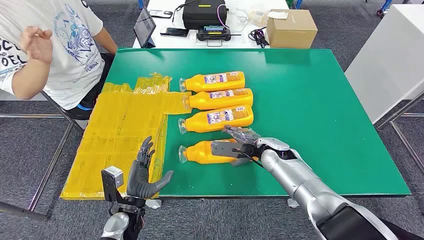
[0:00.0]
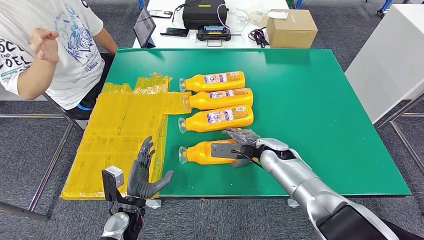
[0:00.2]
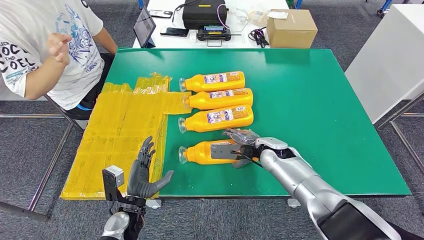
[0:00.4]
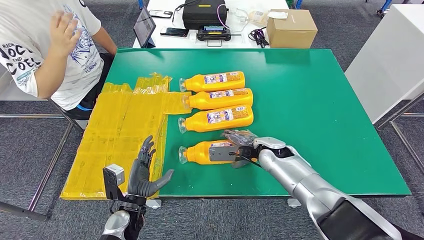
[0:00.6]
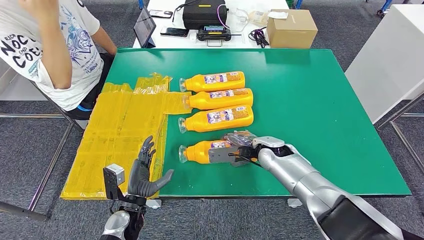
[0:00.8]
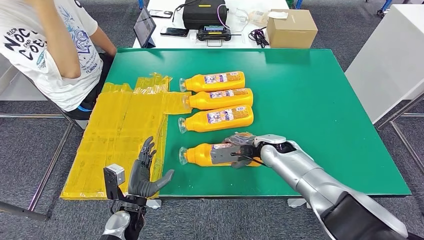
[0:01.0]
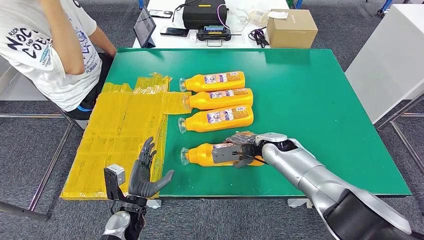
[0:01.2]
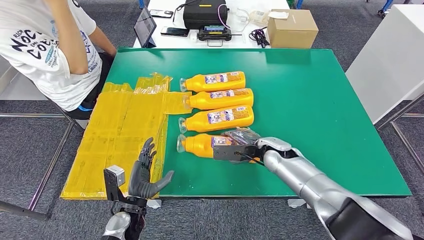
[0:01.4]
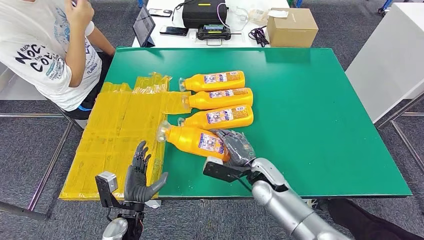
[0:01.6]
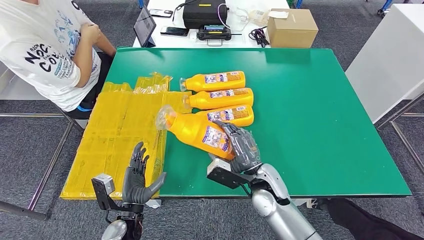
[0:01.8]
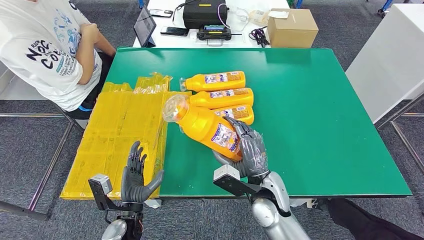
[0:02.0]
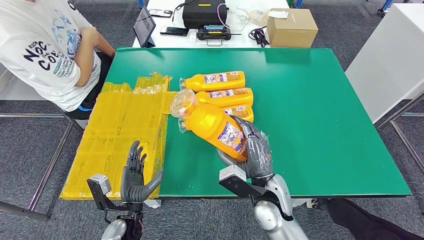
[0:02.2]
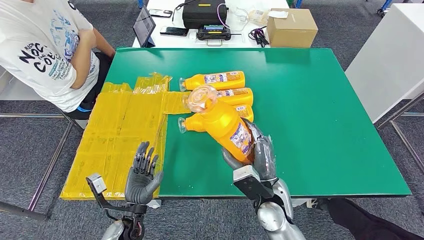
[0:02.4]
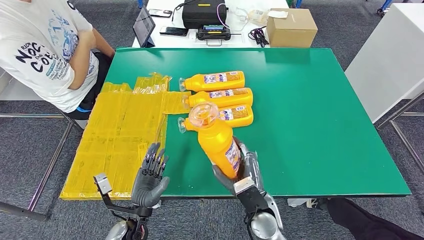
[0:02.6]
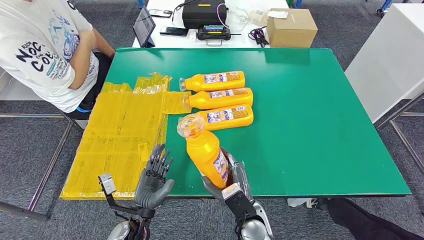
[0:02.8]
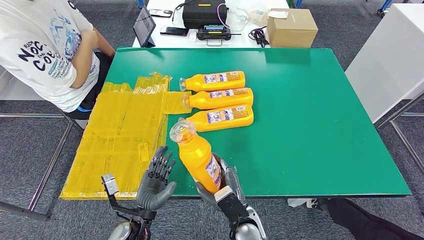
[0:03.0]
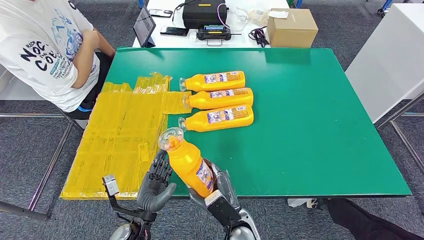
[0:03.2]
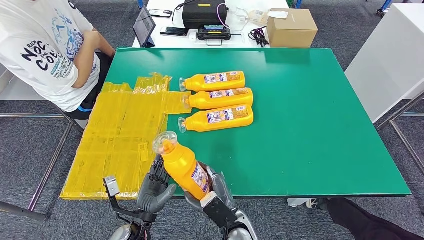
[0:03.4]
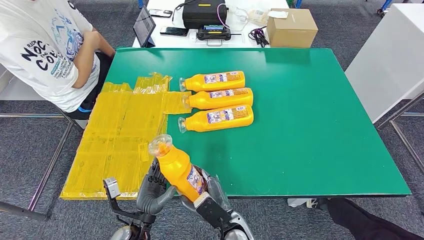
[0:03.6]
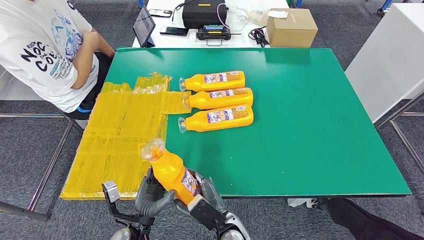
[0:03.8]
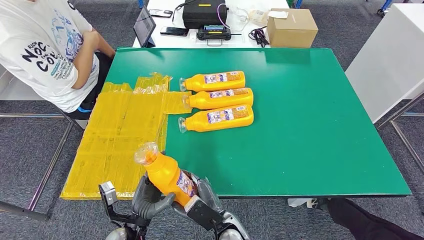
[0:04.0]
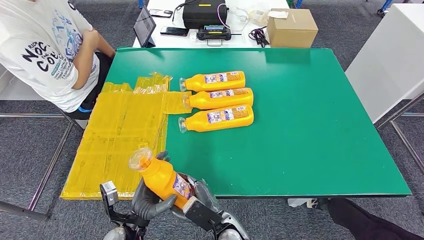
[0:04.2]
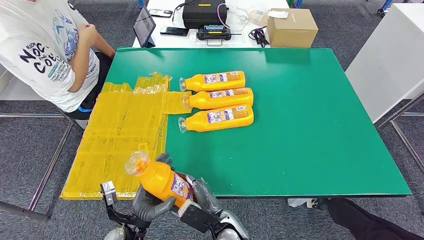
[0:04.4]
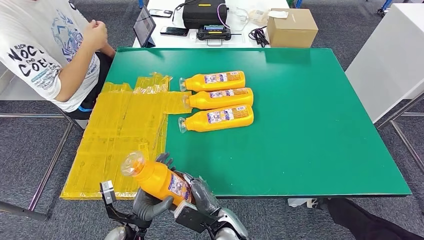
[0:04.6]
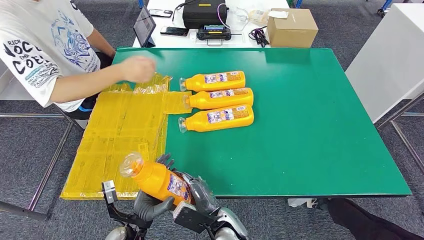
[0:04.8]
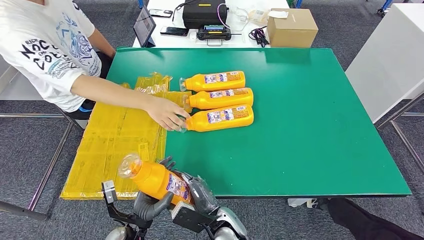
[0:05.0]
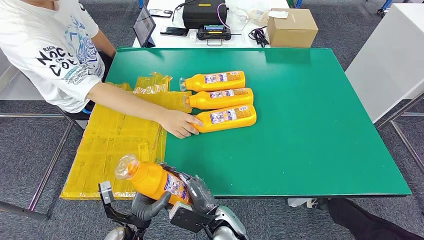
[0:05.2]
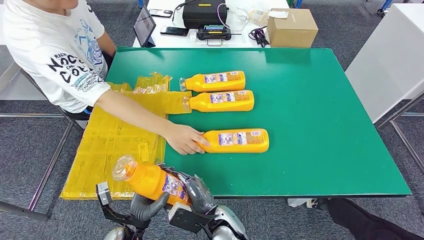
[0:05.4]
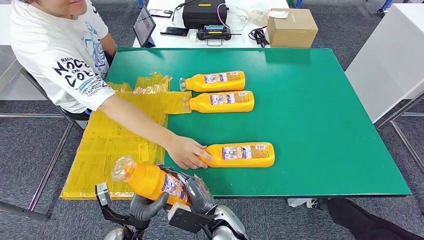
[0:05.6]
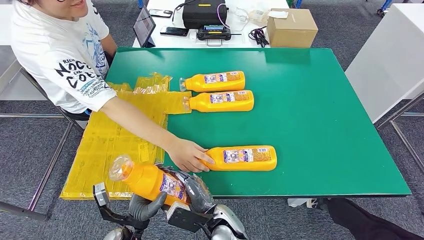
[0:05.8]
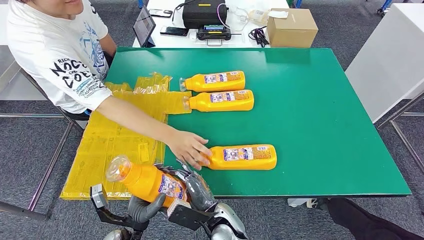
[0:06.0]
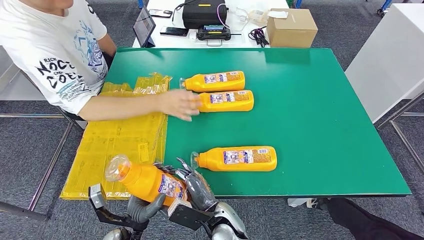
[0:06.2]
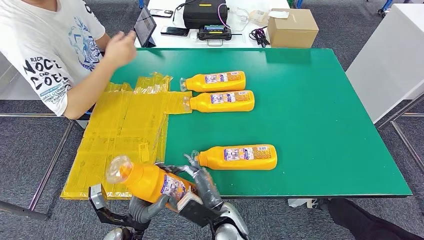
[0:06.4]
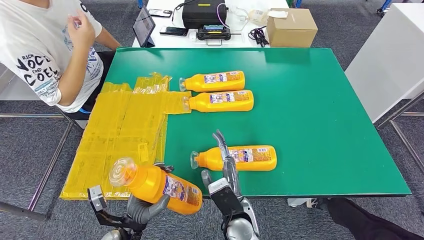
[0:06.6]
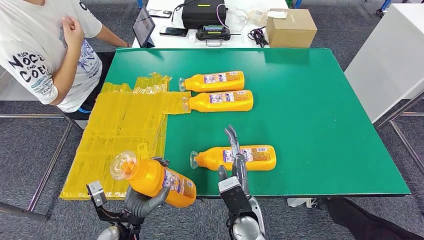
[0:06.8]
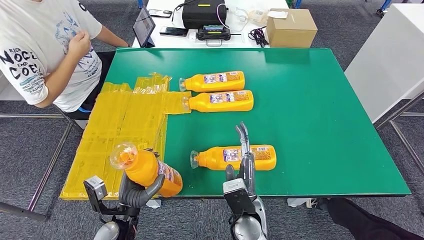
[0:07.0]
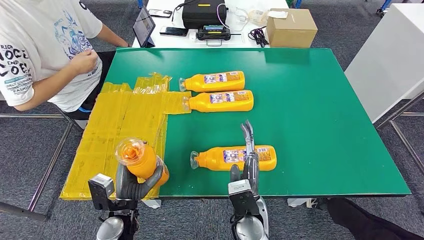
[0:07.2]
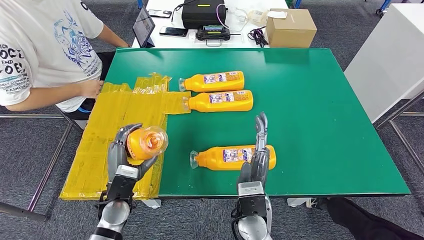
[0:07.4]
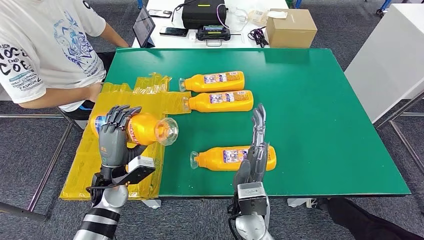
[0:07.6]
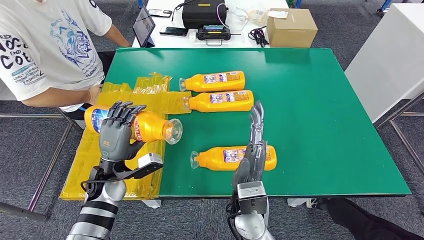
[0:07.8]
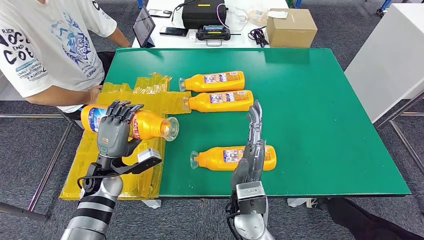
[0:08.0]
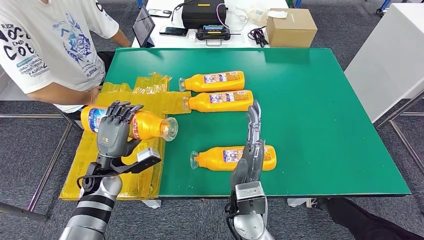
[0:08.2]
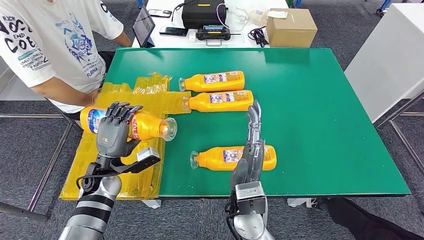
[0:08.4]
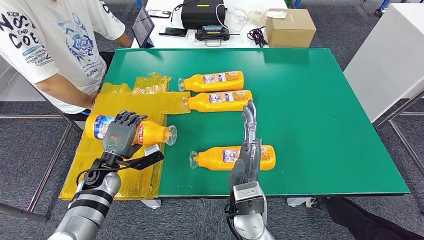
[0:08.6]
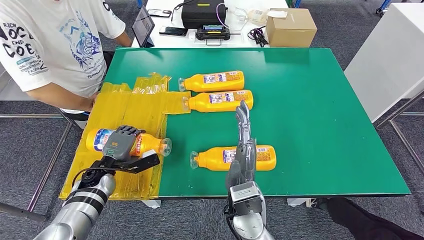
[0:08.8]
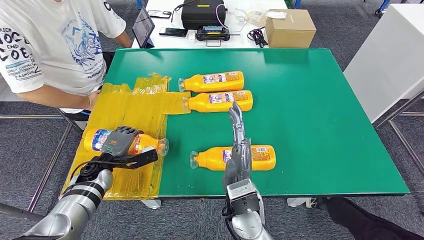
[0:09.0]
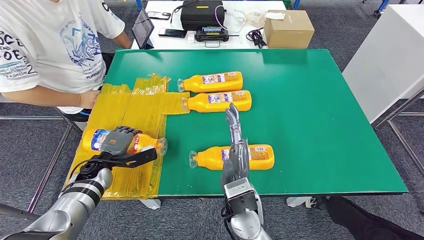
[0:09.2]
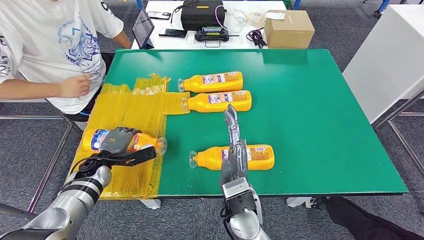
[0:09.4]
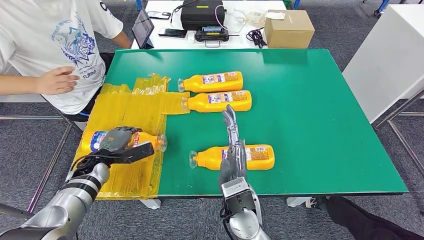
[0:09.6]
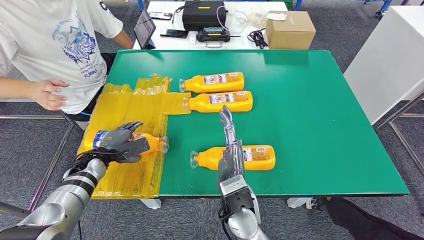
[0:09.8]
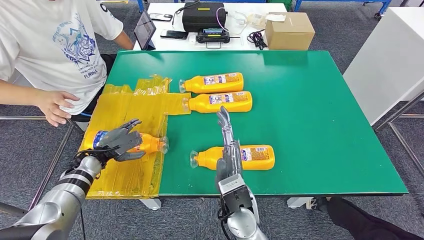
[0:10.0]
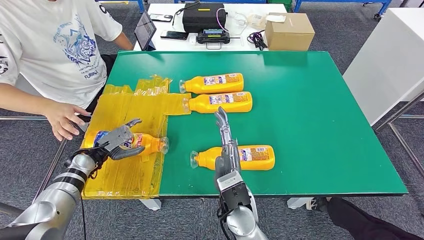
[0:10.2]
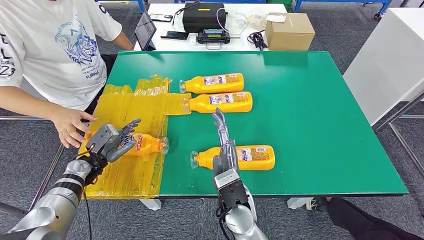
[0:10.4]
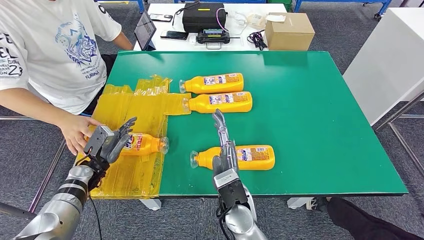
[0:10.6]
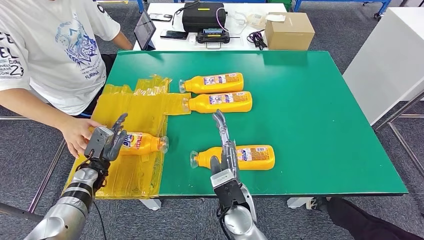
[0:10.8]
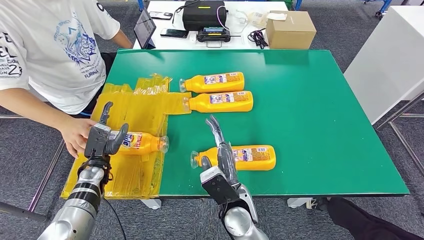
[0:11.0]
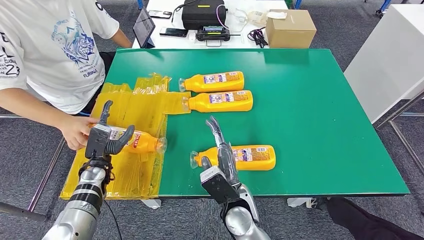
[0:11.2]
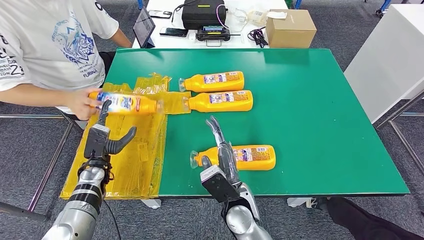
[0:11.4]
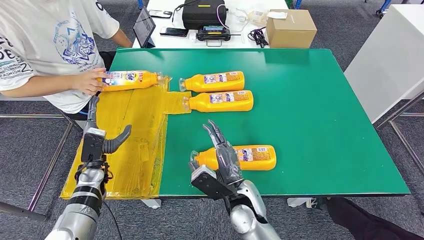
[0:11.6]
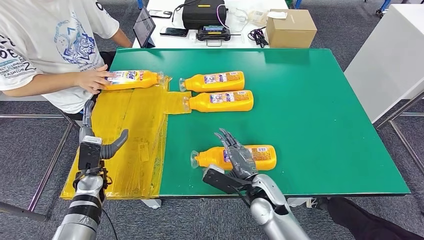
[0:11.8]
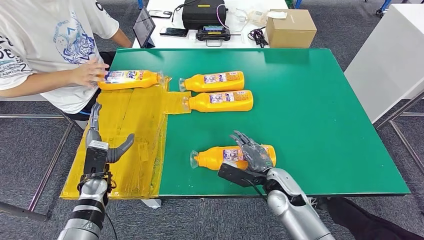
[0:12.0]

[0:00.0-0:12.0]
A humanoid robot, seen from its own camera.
Step, 0:00.0 to 0:05.4: Take the bottle from the table.
Step, 0:05.6 to 0:10.8: Flip the bottle to face forward.
0:01.6 to 0:03.0: The right hand moves backward and to the left, about 10 cm.
0:03.0 to 0:04.4: The right hand shifts by about 5 cm.
0:04.4 to 0:06.0: The hands move only a little.

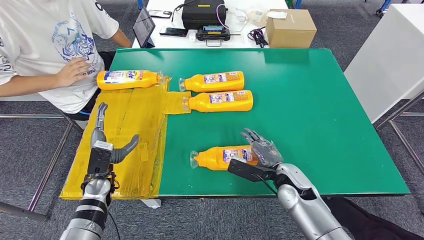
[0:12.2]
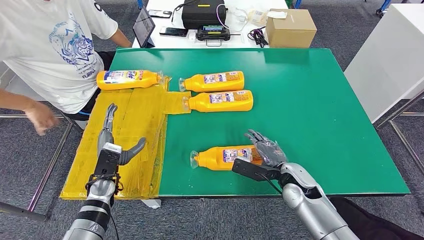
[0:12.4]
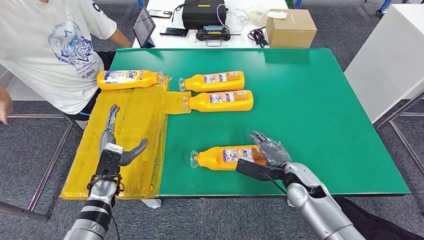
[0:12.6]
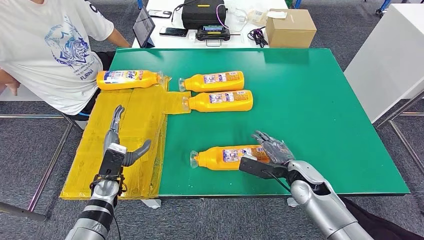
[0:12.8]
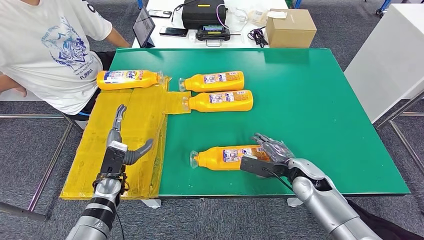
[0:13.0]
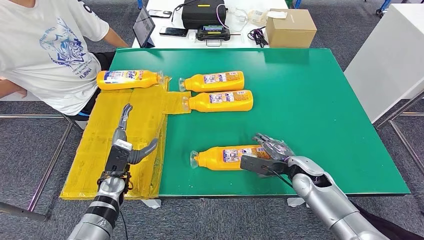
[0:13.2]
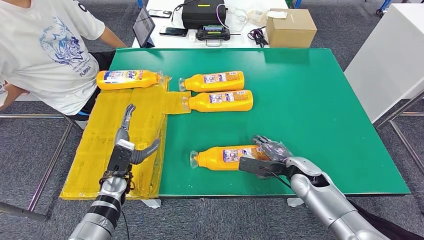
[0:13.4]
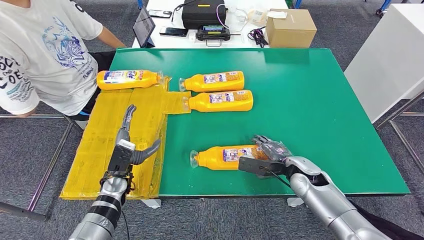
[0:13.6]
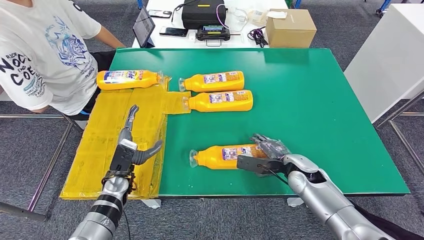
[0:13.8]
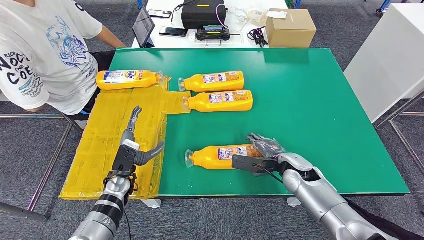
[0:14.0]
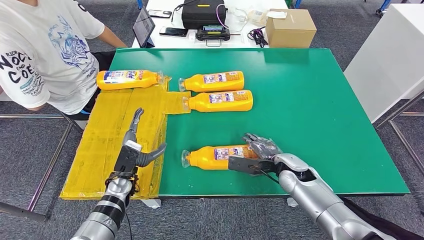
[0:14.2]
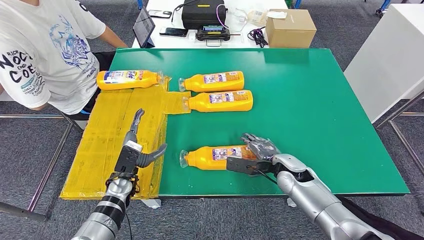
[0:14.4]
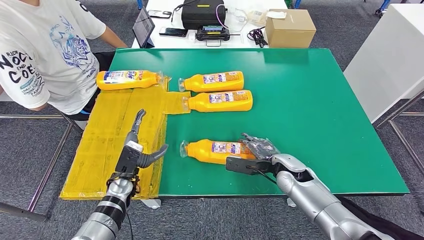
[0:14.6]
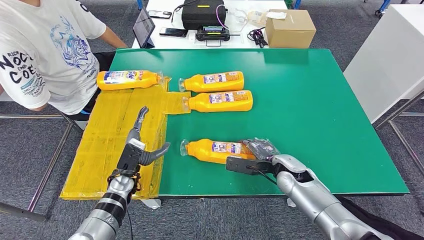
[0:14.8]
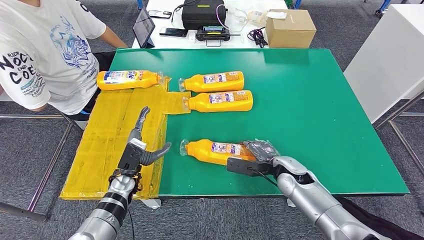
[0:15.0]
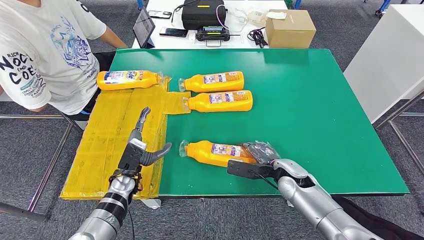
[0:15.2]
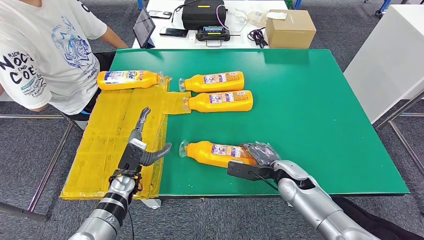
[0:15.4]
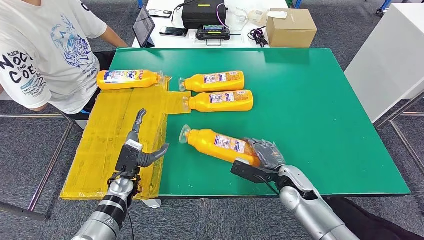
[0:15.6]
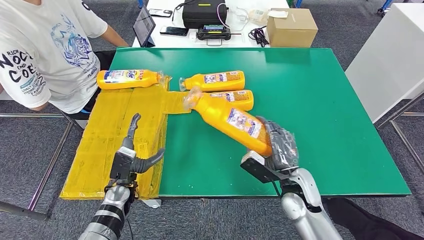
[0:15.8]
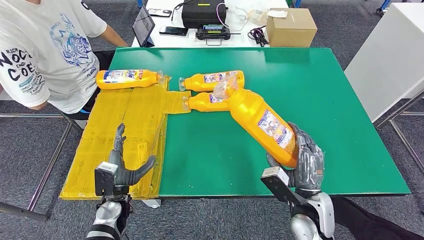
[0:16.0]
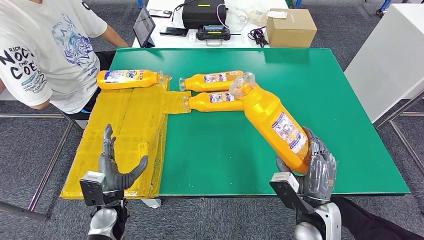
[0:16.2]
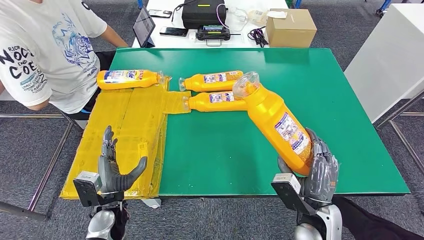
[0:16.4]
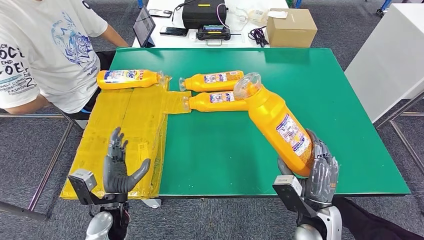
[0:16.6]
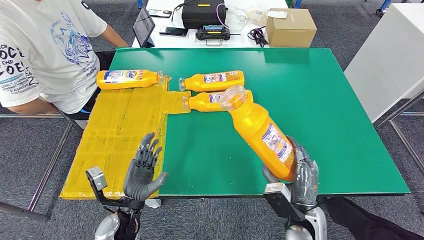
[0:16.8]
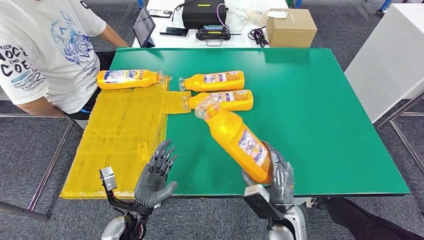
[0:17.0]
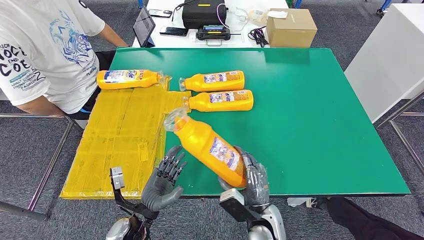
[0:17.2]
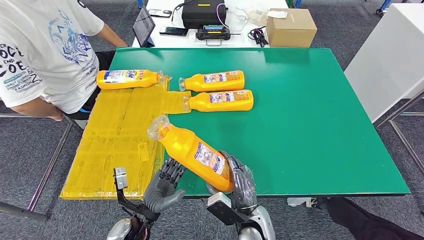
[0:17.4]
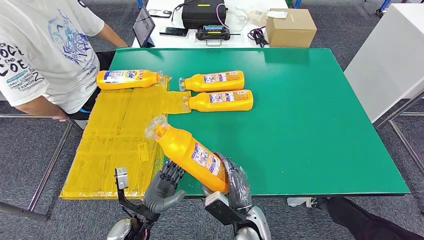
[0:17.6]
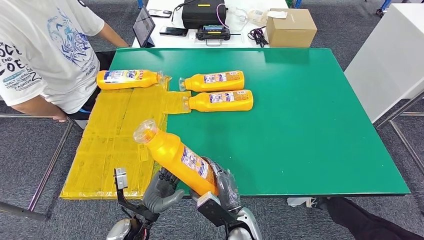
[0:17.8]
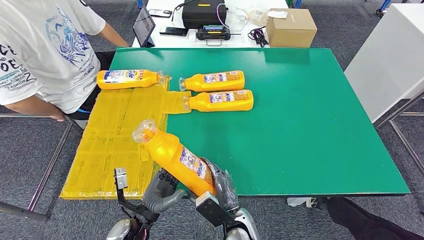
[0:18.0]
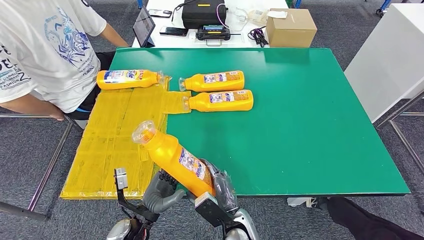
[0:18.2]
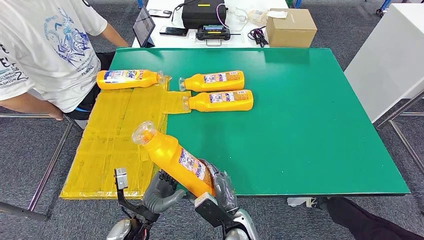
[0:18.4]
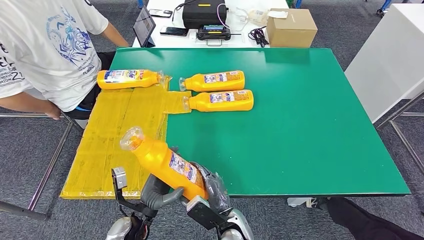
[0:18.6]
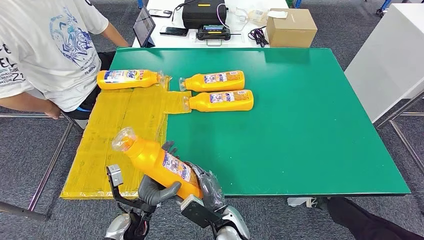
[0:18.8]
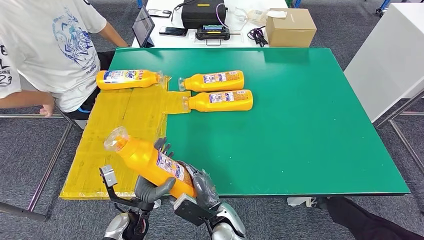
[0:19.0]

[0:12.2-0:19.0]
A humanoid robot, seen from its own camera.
Step, 0:14.0 to 0:17.6: Pick up the bottle from the table.
0:12.2 to 0:13.6: The right hand changes place by roughly 5 cm.
0:13.6 to 0:15.0: The hands stay close to where they were, moving slightly.
0:15.0 to 0:16.2: The right hand moves backward and upward, some 15 cm; the left hand moves backward, approximately 10 cm.
0:17.6 to 0:19.0: The right hand goes some 5 cm to the left.
